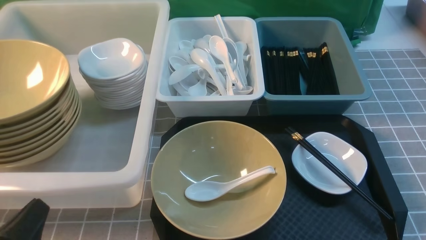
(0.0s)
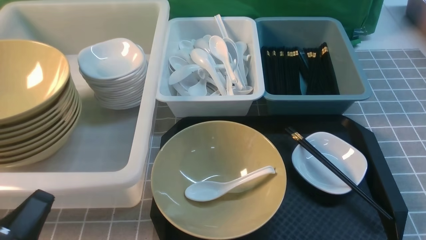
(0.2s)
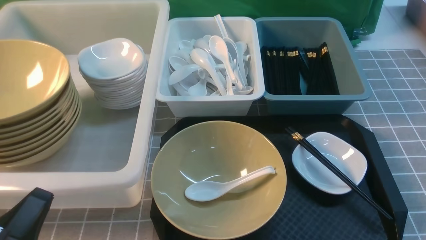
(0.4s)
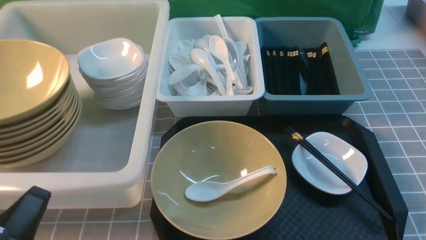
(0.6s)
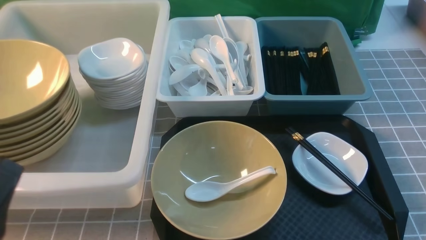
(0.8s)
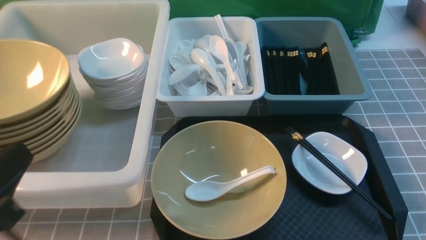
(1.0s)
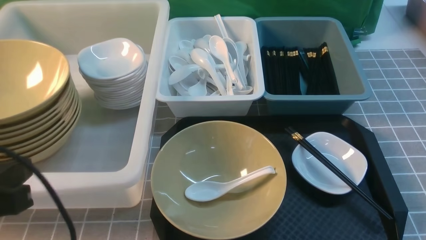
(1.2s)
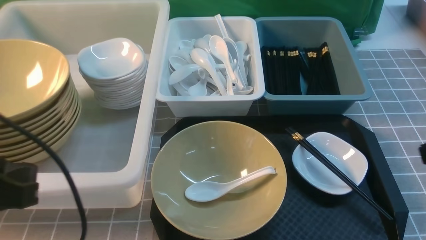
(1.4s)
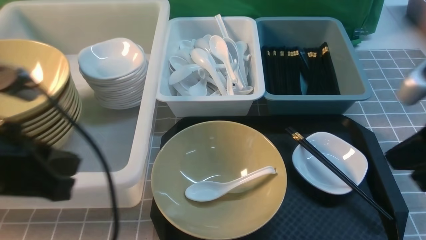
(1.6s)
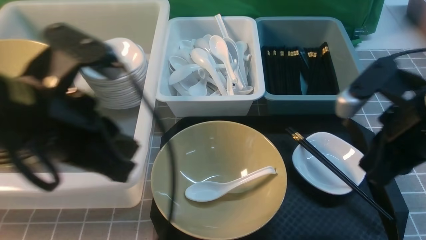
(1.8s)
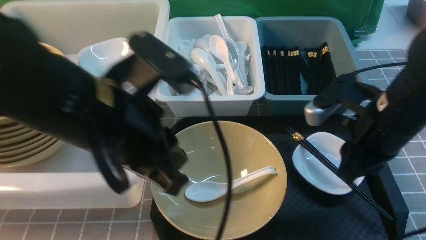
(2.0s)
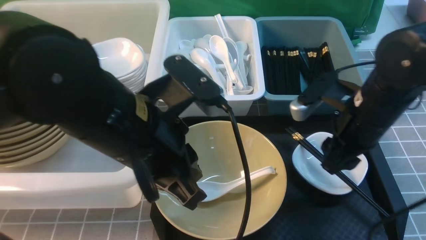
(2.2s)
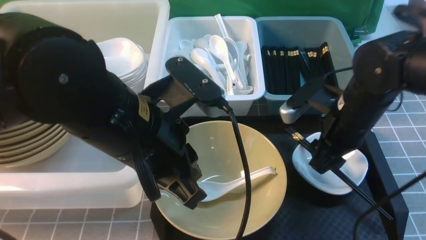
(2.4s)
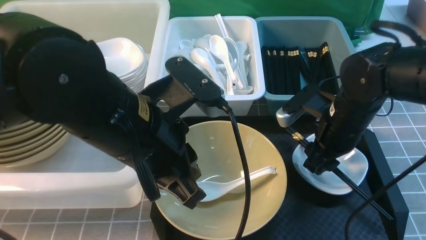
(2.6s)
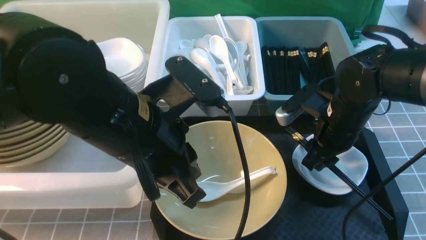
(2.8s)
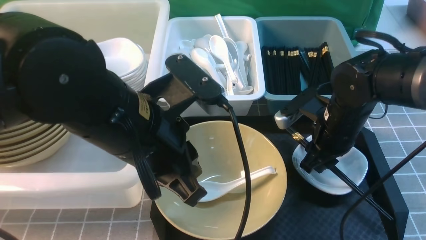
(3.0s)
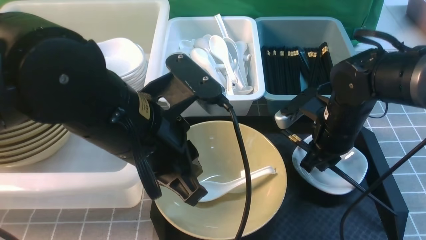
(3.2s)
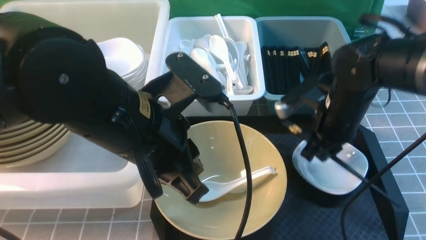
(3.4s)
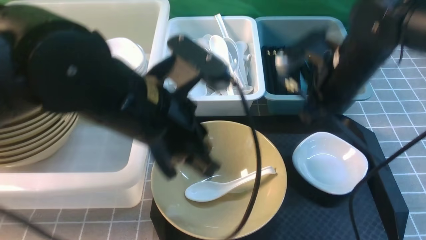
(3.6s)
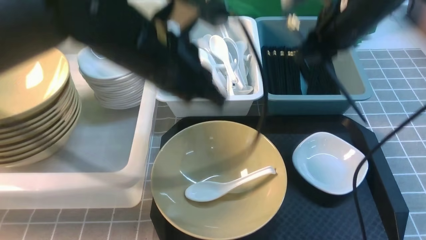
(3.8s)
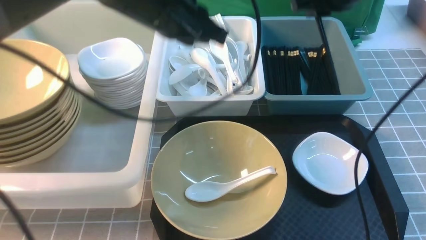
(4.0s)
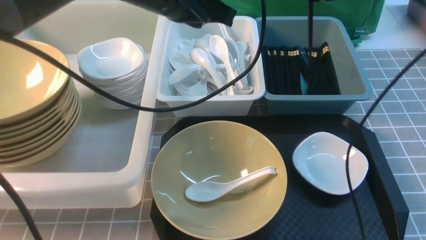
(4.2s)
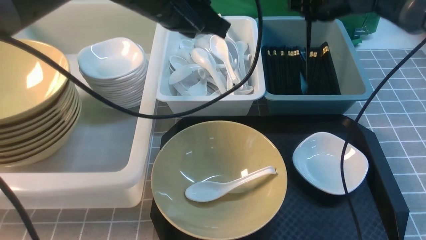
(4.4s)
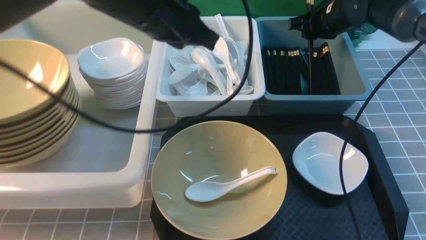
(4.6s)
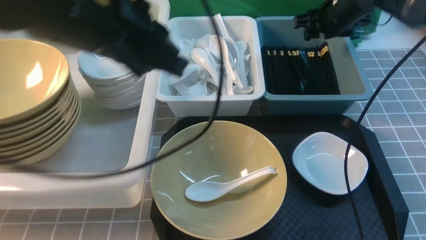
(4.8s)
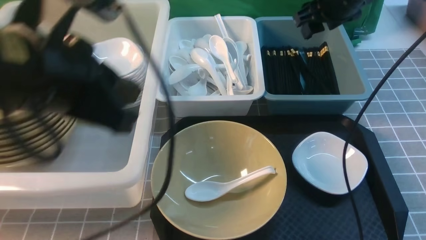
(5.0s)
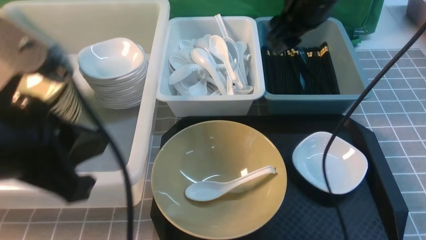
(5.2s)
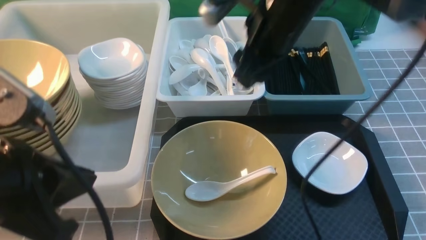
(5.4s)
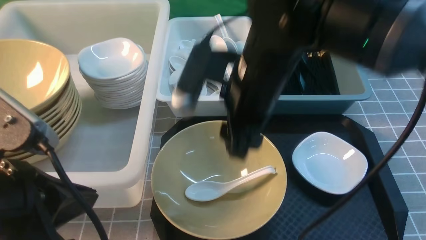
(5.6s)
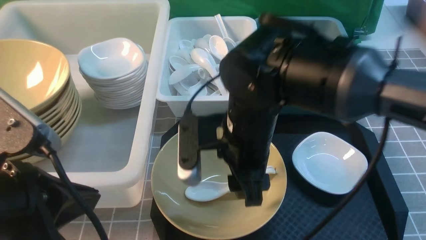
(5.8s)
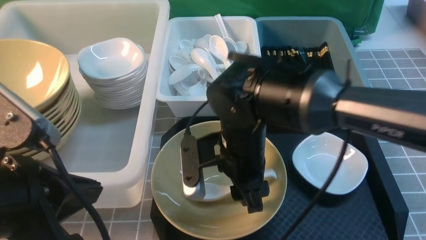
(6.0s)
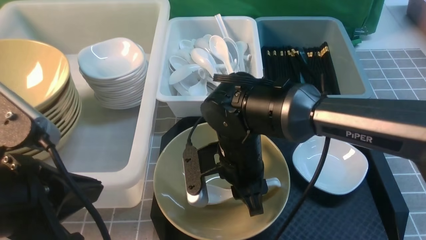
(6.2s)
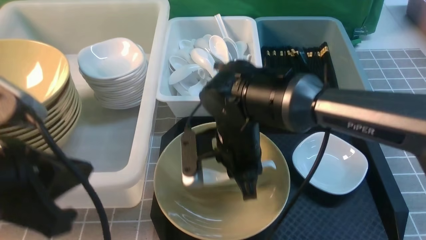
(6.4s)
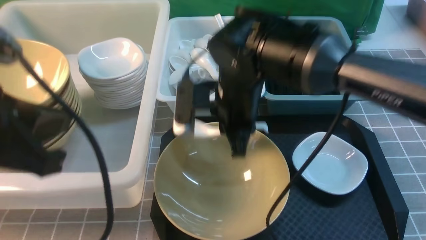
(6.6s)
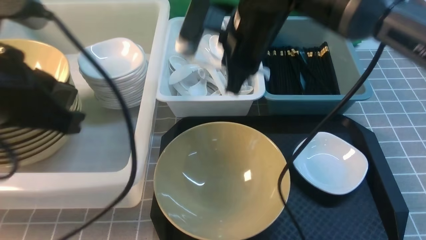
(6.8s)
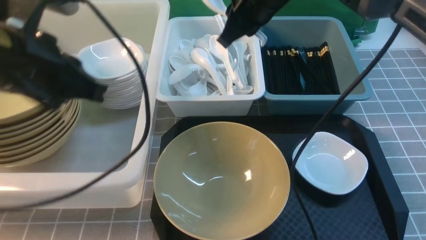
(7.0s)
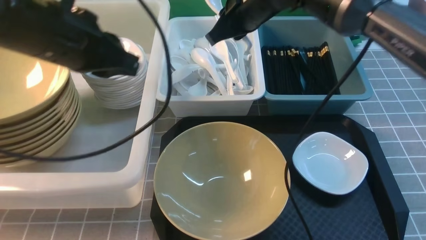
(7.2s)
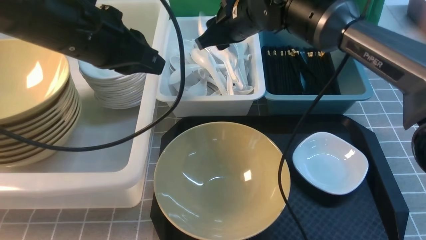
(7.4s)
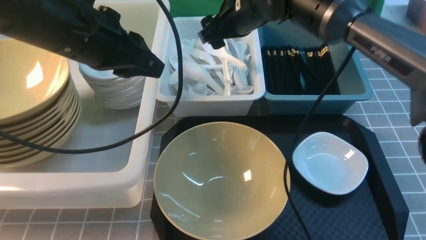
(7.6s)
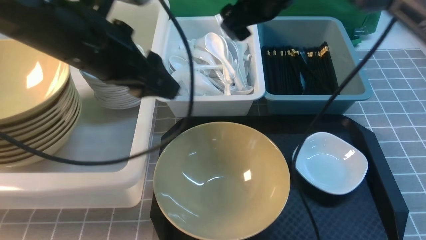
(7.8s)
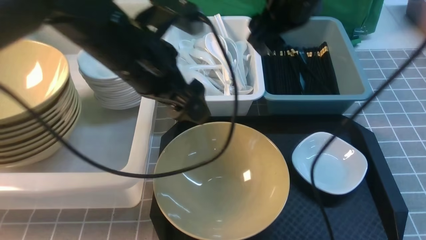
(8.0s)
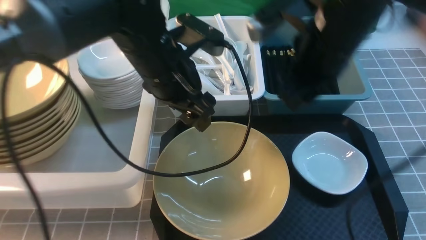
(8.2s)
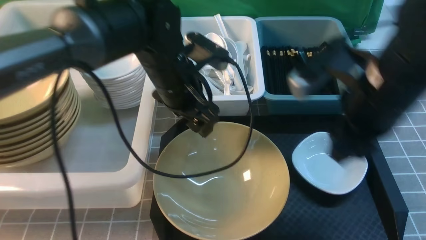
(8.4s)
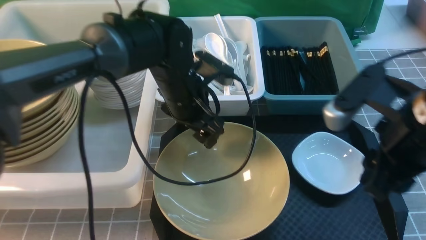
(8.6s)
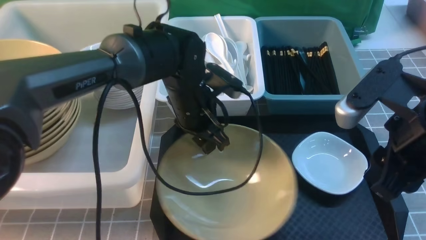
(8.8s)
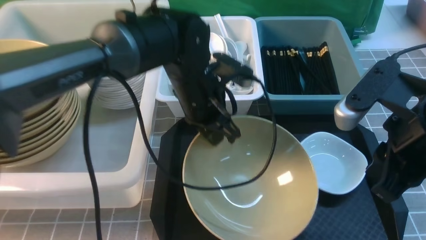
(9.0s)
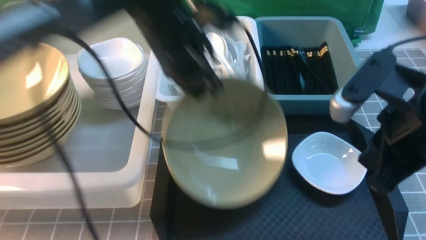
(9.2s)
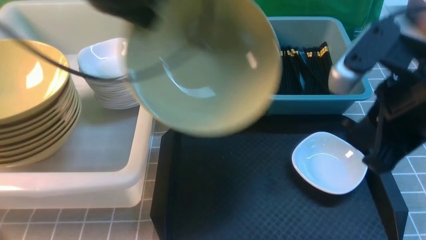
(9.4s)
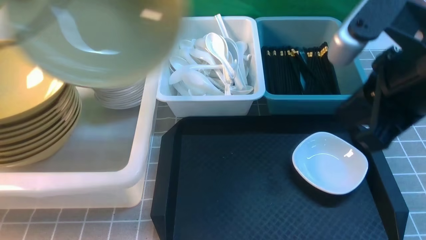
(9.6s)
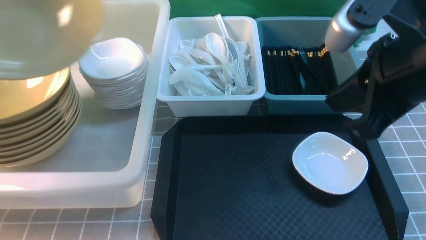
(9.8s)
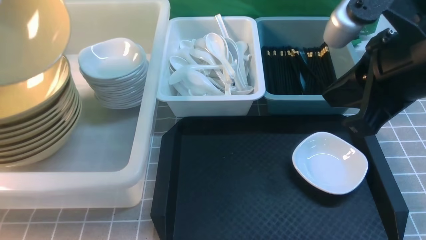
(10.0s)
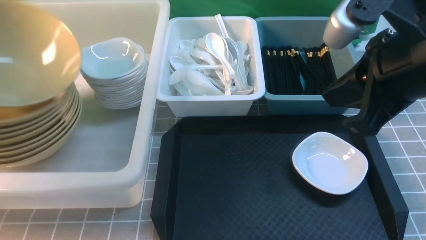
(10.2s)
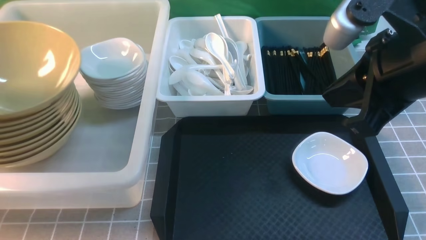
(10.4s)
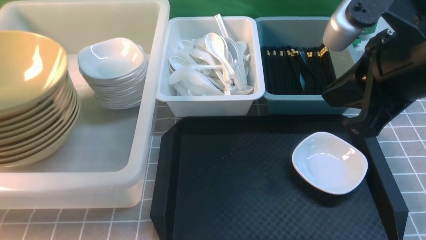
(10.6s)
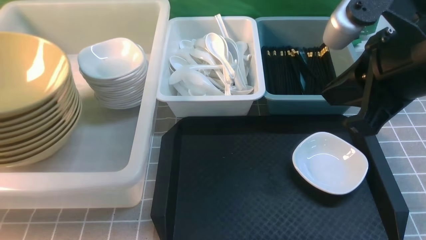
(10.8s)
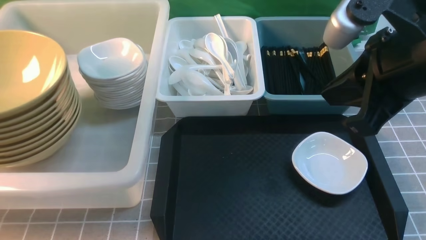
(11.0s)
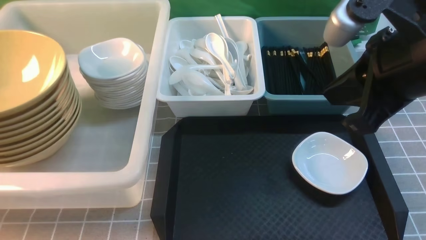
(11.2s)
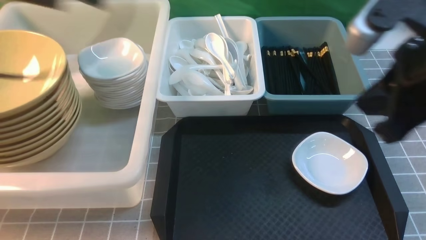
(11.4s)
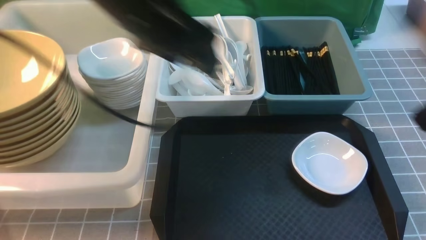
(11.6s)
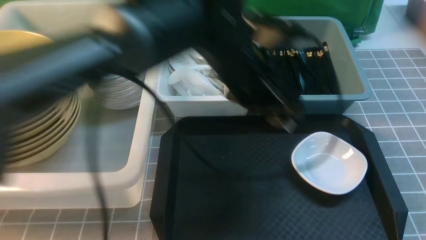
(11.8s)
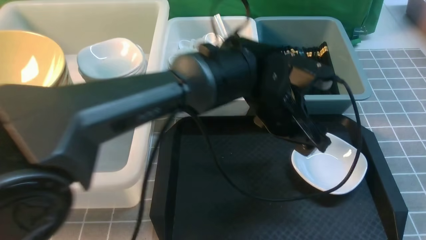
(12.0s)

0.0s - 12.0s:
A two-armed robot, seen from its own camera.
Task of the whole recording: on grey table put chopsticks spoon bowls plates into blue grey white boxes.
Step, 0.0s - 3.2s: use the right arm to grab the chopsticks.
Step, 3.6s - 4.6s: use the right arm to put the chopsticks into the small storage box on the right.
Step, 4.8s - 6.4s: use the right arm to grab the soup spoon in the middle.
Step, 6.6s - 7.6s: use the right arm to put the soup spoon into the small storage box in the middle.
Step, 7.8s - 9.2s: use the left arm to grab the yellow noodle bowl on the left.
Step, 9.4s - 11.2s: use the left arm to put the noodle bowl into the large storage box on the left.
0.0s - 1.6s: The left gripper heads upward and forward, covering roughly 20 cm, while the right gripper travels upward, forward and to the left by approximately 20 cm, and closes.
1.6s - 3.0s: The right gripper is displaced forward, downward and to the left by roughly 20 cm, and opens up. The left gripper is displaced to the right by some 10 cm.
3.0s - 4.4s: Both grippers travel together forward and upward, approximately 20 cm.
4.4s - 6.0s: The two grippers go about 25 cm backward and to the left. The right gripper opens up.
6.0s - 7.6s: The left gripper heads forward, covering roughly 20 cm, and opens its fingers. Meanwhile the right gripper shifts some 20 cm forward and upward, and closes, then reopens.
7.6s - 9.0s: The left gripper shifts about 15 cm to the right, downward and forward, and opens and closes again. Meanwhile the right gripper is displaced backward and to the right by about 30 cm, and closes up.
9.0s - 10.4s: The right gripper travels upward by approximately 5 cm. The left gripper goes approximately 40 cm to the left.
10.4s - 12.0s: The right gripper shifts some 15 cm backward and to the right, while the left gripper travels to the right by some 50 cm, and opens its fingers.

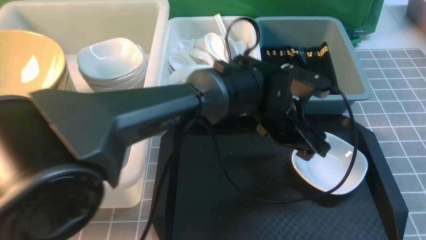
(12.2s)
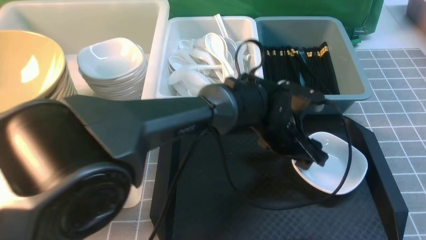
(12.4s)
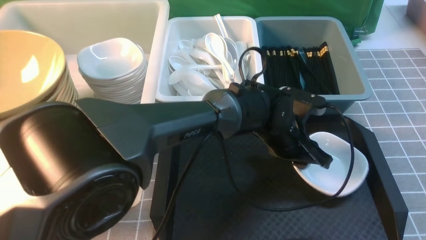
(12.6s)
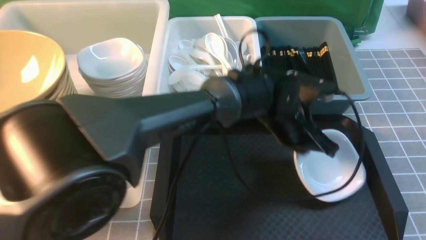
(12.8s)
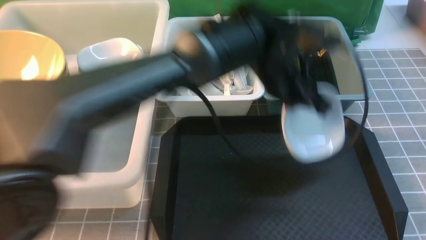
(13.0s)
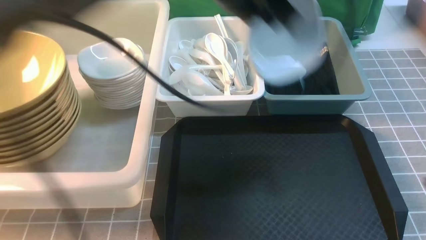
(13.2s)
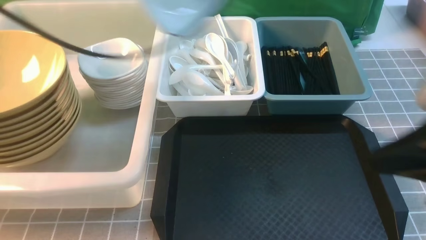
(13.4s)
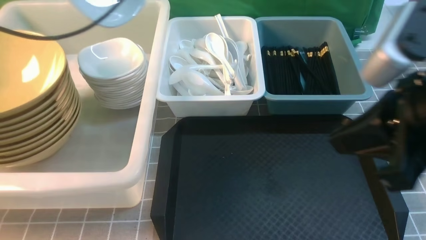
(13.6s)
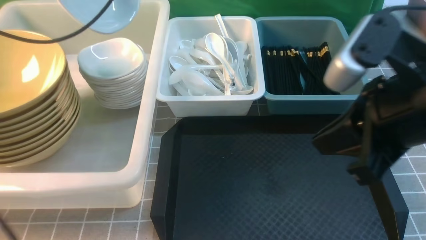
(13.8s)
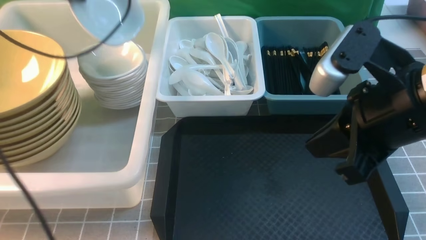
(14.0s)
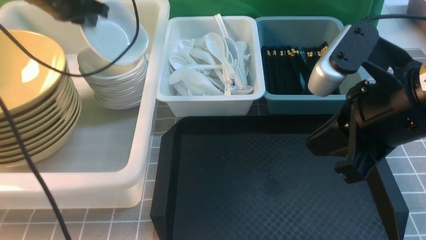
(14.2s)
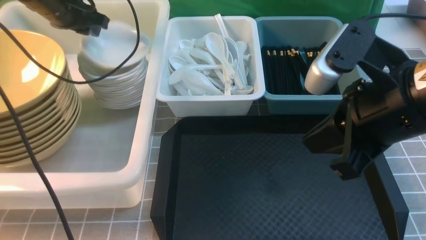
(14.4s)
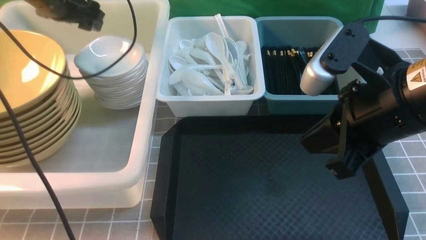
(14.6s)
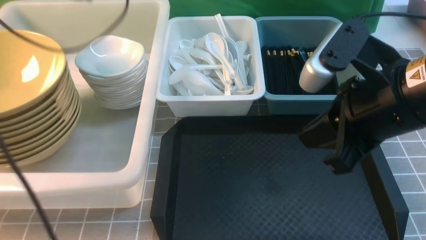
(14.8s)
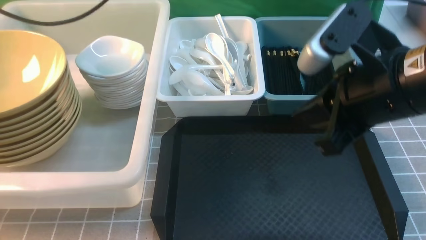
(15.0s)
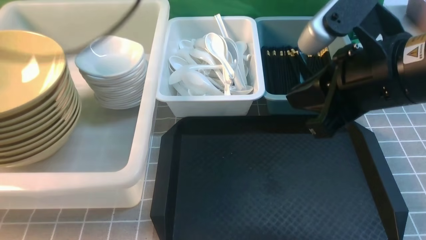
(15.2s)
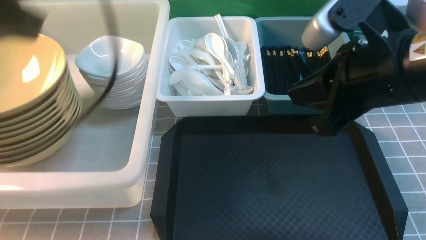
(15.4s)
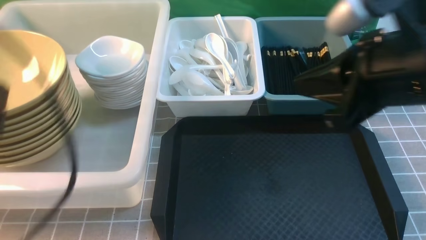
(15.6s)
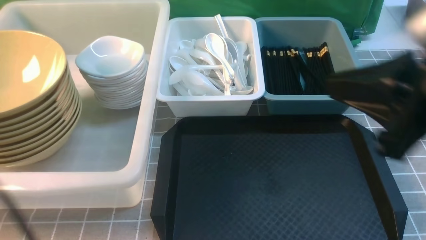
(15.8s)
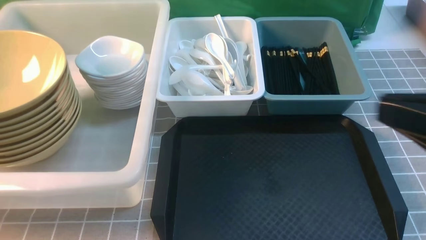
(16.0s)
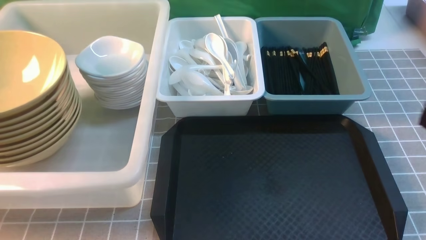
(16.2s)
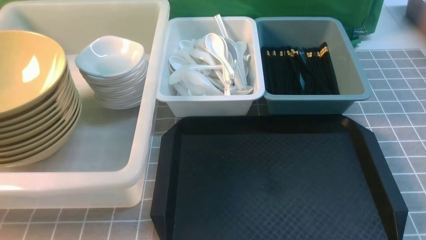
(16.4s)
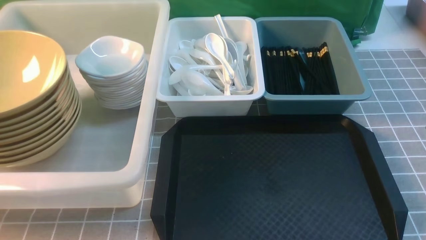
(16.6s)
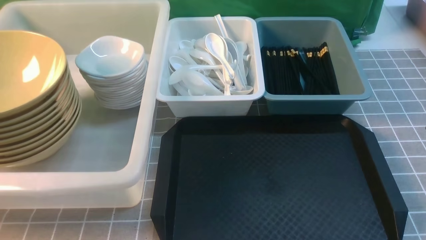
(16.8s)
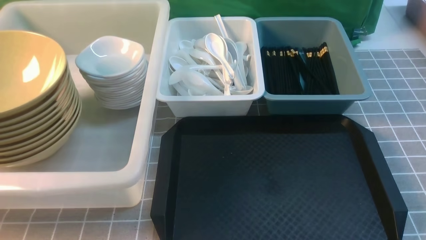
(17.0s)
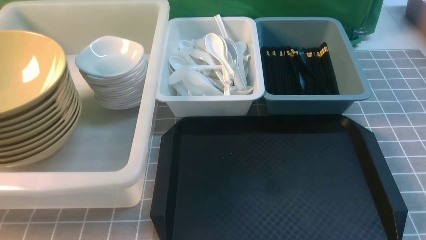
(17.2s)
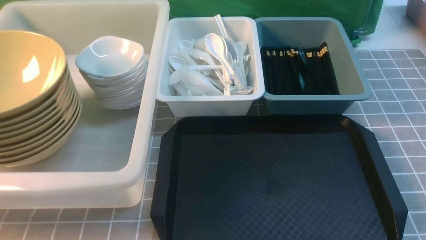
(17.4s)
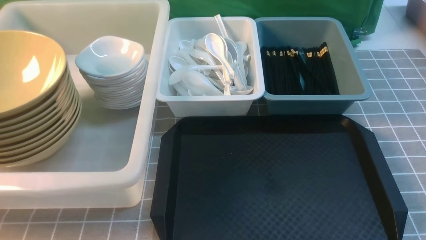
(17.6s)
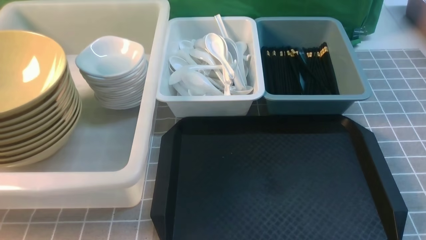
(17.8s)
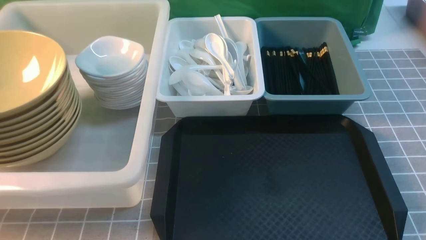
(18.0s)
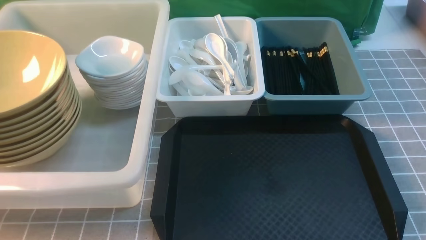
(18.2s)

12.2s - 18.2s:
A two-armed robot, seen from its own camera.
Task of the whole recording: on grey table put chopsticks spoon bowls plates into blue grey white boxes.
Step, 13.2s - 15.2s: use the left arm to put the plate into the large storage box on the left.
12.2s - 13.8s: The right gripper goes about 15 cm forward and to the left; the left gripper shifts roughly 40 cm to the left and upward, and closes.
13.8s - 15.2s: The left gripper goes roughly 15 cm backward and upward, and opens, then closes once more.
15.2s - 16.6s: The left gripper travels backward and downward by about 30 cm. Meanwhile the right gripper shifts approximately 15 cm backward and to the right.
